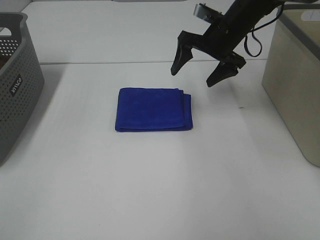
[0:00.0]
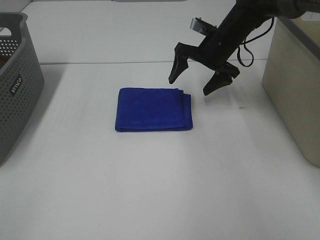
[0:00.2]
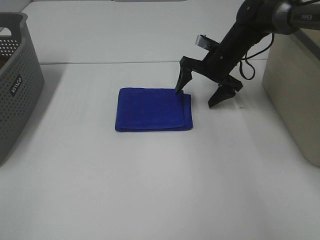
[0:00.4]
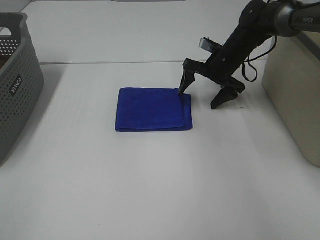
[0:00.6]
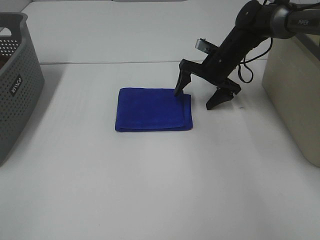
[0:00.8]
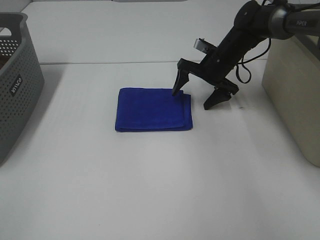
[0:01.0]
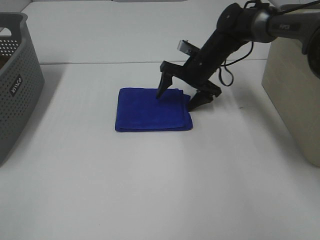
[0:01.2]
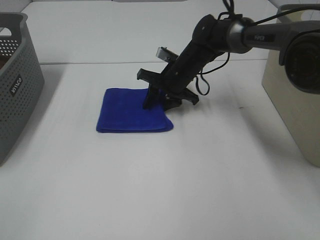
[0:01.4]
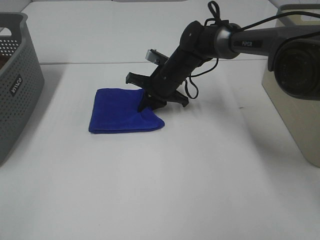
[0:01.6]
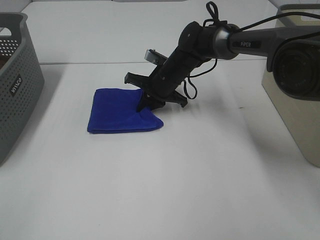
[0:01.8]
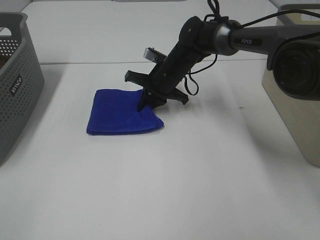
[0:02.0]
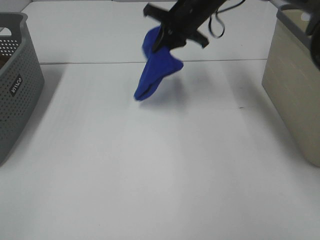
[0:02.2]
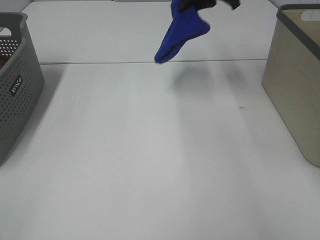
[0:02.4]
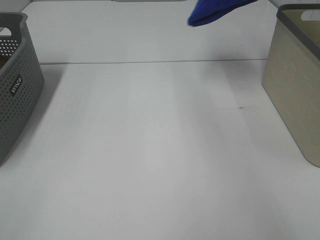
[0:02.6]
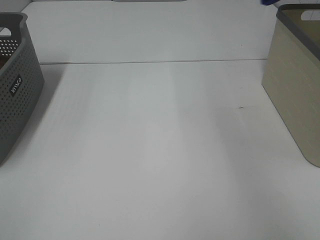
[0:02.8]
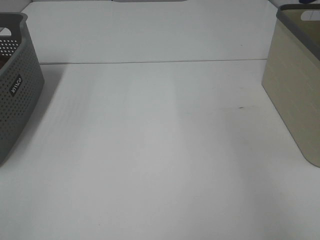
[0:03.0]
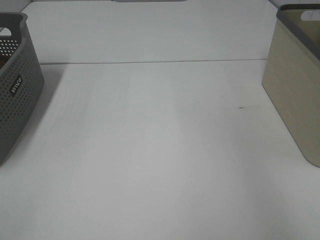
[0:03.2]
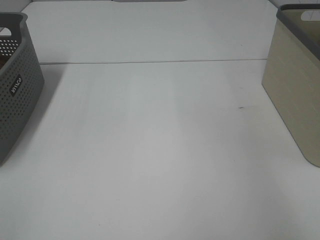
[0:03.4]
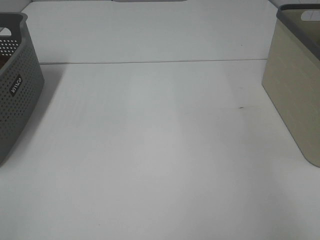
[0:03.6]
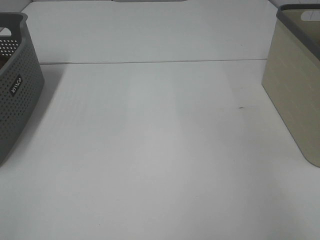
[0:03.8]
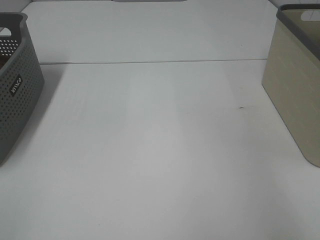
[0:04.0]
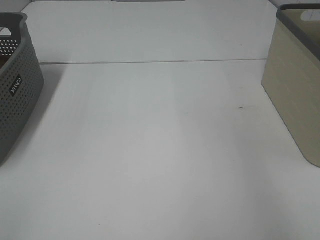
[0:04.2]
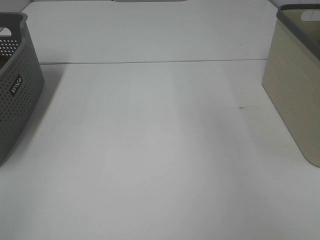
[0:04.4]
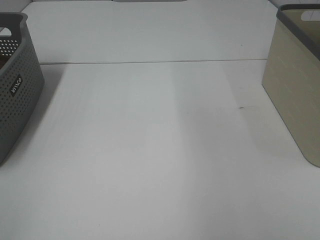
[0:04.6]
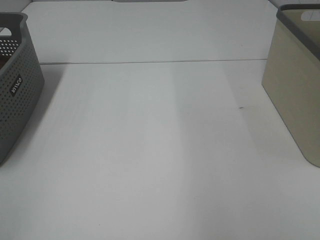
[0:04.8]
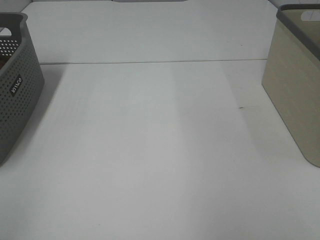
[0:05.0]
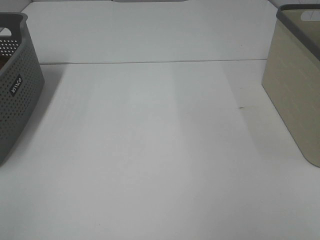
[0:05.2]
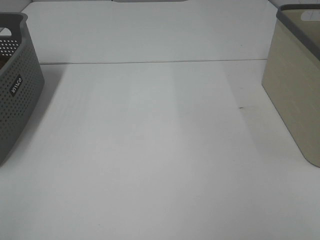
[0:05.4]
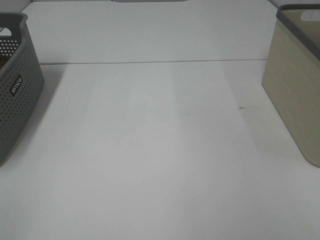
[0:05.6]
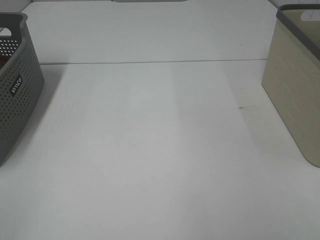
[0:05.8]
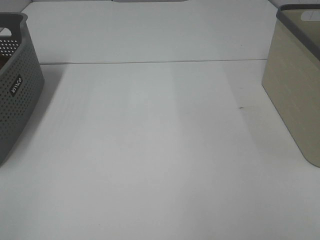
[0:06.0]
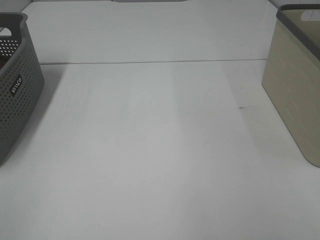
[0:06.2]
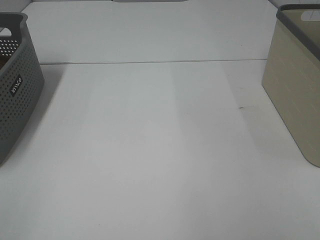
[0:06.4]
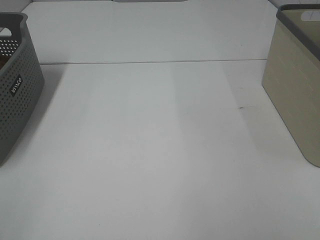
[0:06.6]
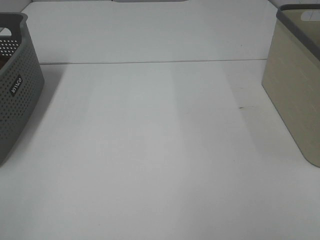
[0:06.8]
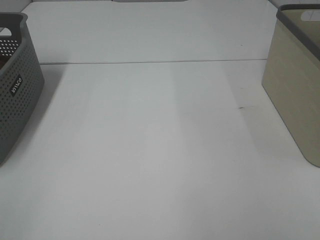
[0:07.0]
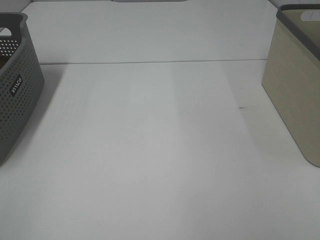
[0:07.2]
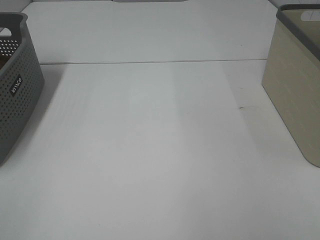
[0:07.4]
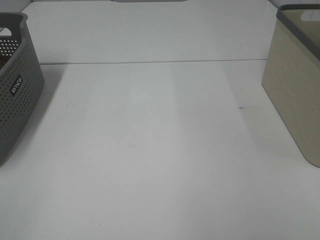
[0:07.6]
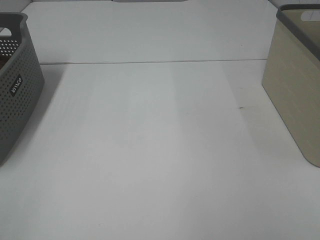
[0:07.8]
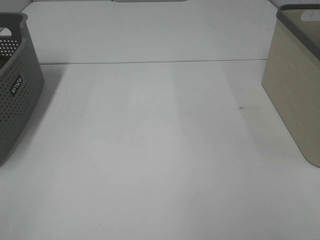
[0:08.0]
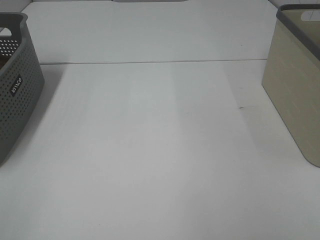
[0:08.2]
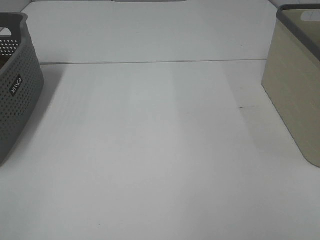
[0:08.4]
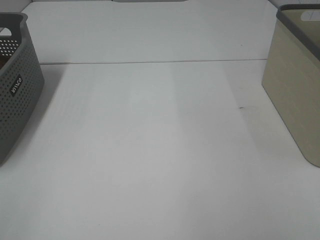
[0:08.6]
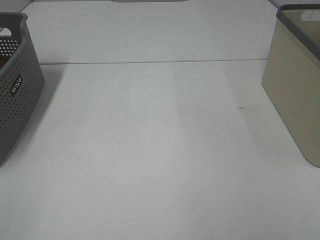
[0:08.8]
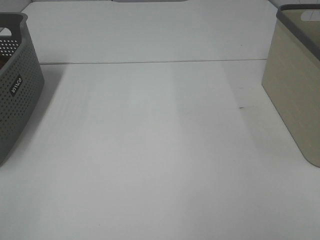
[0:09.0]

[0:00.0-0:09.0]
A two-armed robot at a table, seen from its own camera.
Step, 0:01.8 to 0:04.2: Right hand: place the blue towel in right basket.
0:00.0 to 0:01.6: The right gripper travels downward and to the left by approximately 15 cm, and closes.
0:01.6 to 0:03.0: The right gripper heads upward and to the right, covering some 50 cm.
0:06.0 to 0:09.0: The two grippers keep their place.

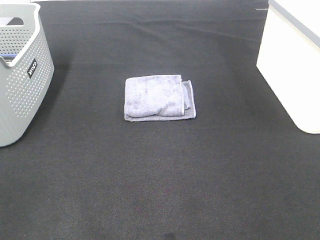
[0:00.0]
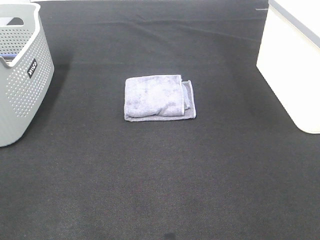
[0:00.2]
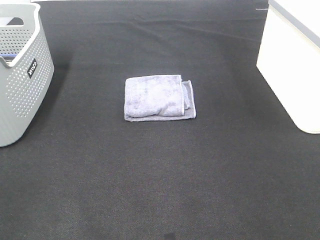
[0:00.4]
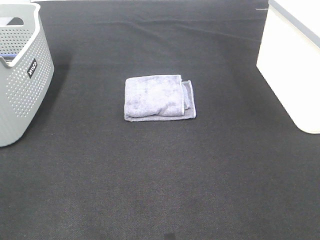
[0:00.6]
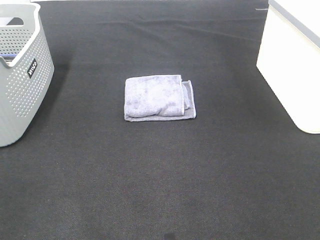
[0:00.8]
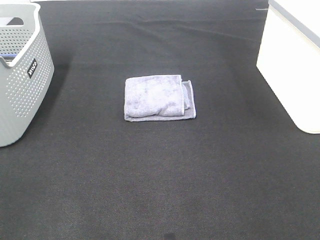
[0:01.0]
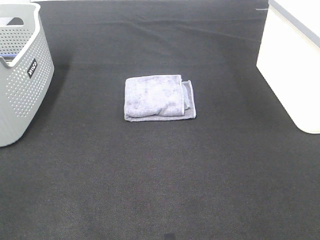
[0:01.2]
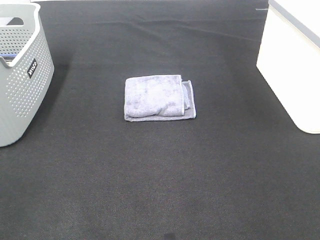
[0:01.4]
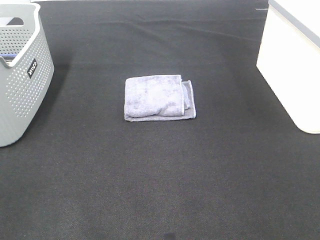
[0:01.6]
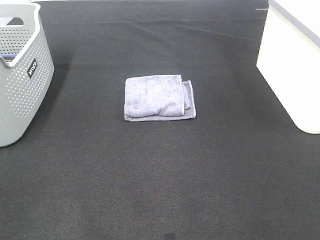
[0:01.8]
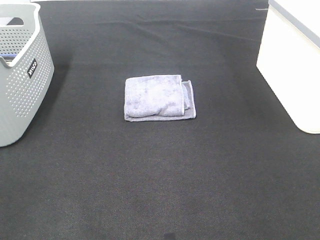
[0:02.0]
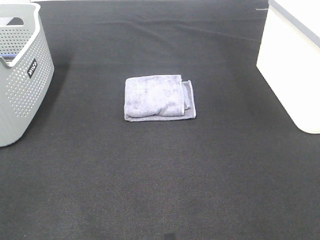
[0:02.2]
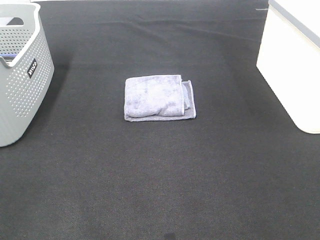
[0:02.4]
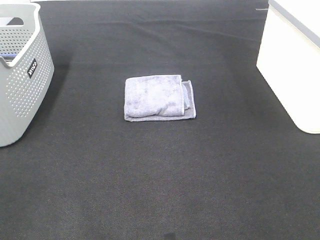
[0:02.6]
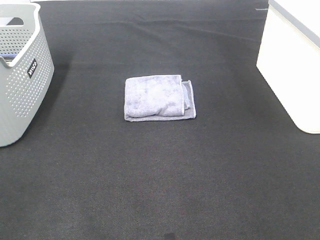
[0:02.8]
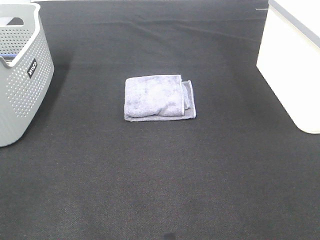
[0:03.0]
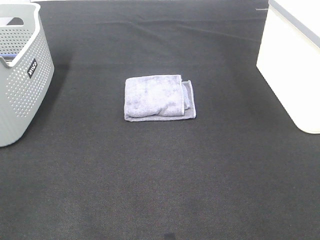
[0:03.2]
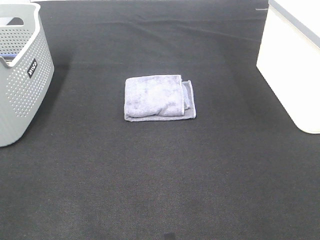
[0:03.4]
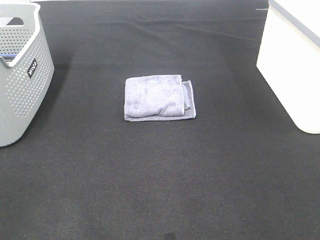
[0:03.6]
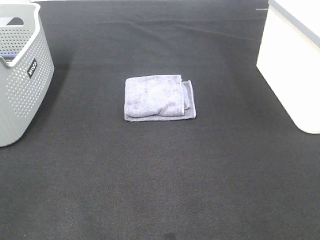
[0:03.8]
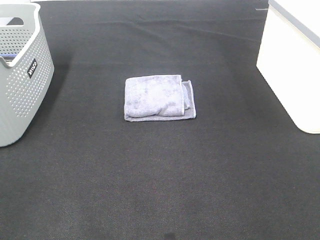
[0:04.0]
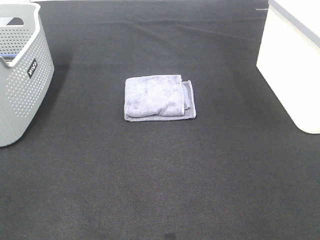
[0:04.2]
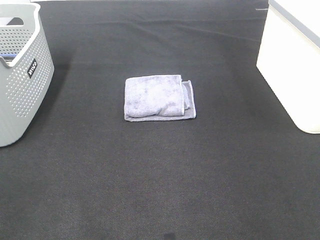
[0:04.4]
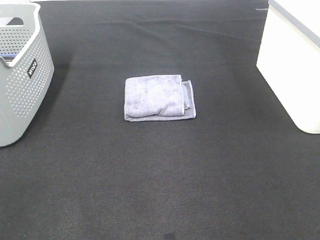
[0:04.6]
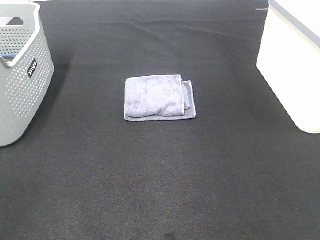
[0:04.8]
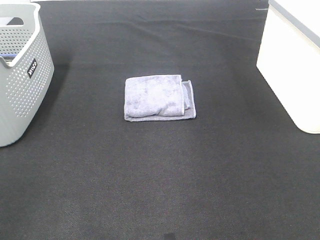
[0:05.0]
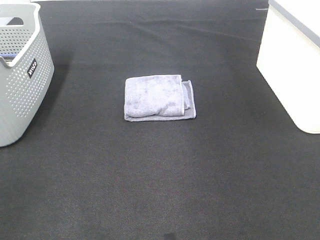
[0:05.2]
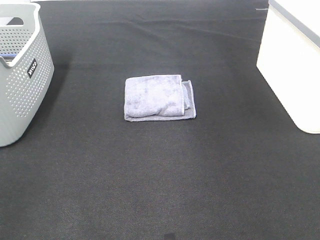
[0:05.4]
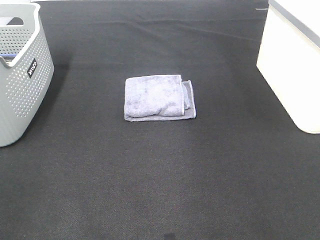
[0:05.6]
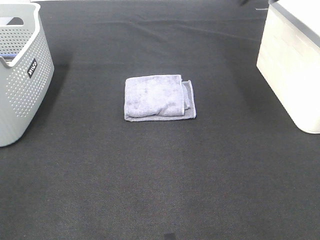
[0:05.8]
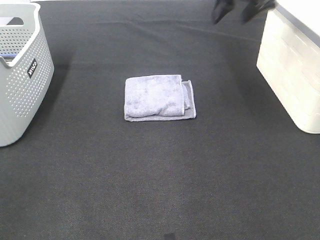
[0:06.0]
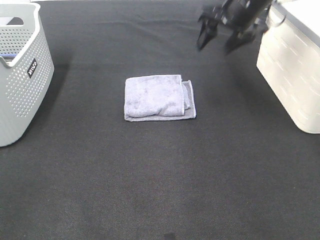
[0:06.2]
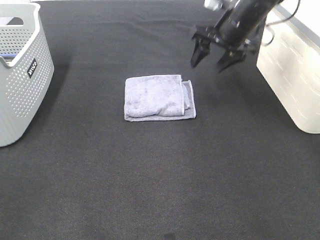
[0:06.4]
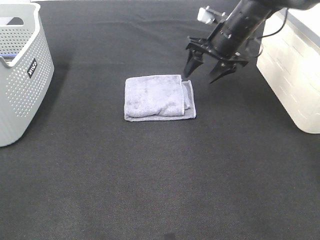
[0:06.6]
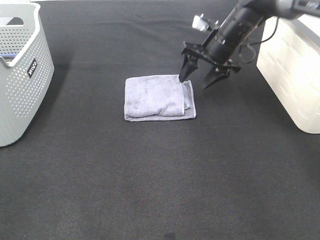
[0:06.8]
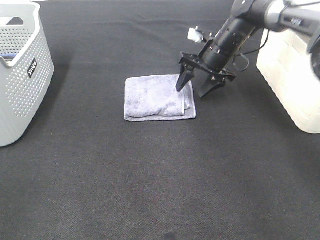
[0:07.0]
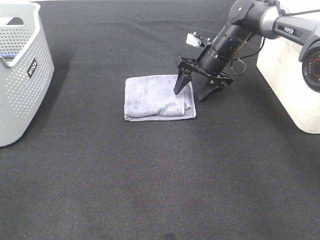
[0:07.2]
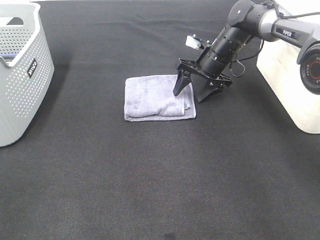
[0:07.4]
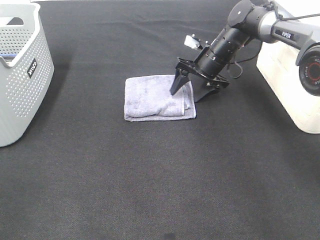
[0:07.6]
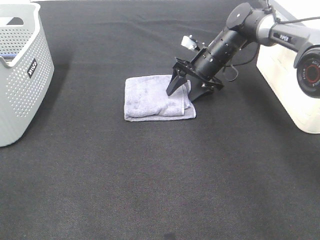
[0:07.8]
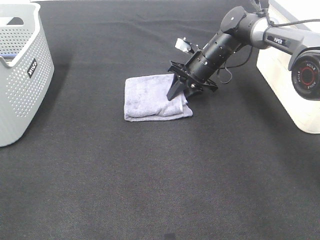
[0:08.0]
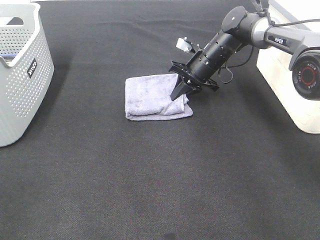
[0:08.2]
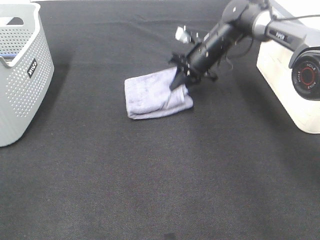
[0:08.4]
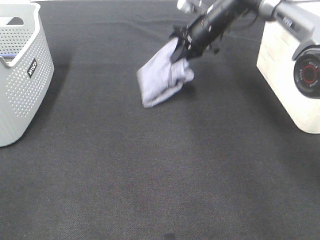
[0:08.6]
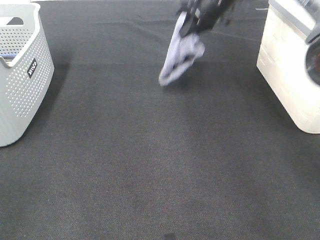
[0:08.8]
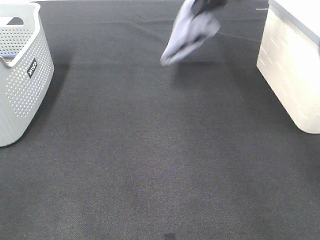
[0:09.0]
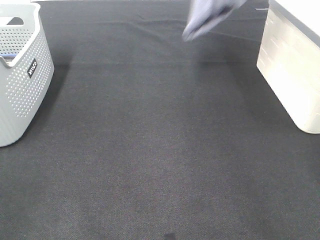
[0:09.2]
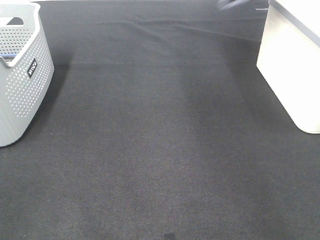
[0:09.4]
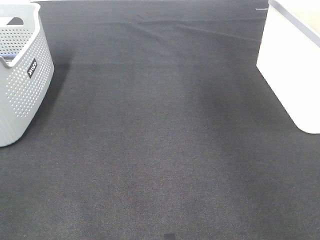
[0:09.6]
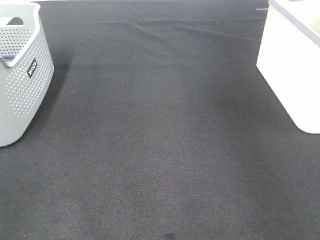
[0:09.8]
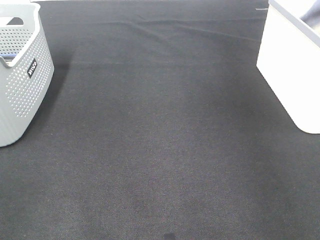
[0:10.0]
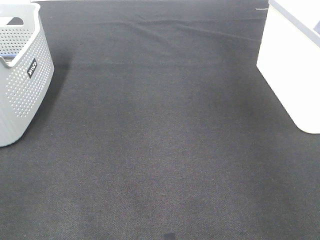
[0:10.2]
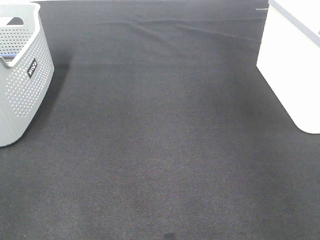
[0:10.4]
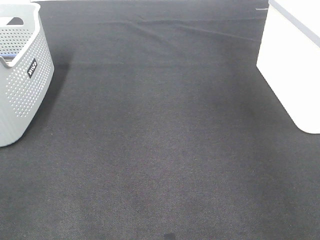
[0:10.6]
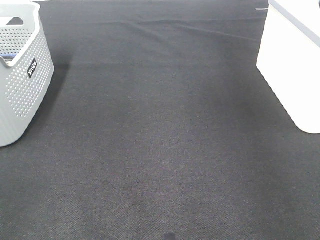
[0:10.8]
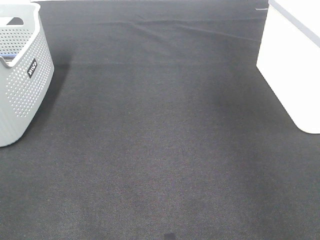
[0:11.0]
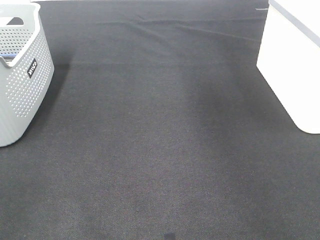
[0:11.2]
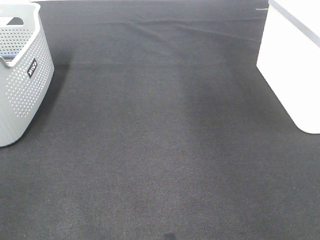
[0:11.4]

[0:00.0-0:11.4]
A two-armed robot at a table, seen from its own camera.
Step, 0:00.0 to 0:08.0: Right hand: grab the folded grey towel.
Step, 0:08.2 to 0:10.6: Right hand: place the grey towel in right basket.
0:00.0 to 0:02.8: Both grippers stay put.
0:05.6 to 0:07.2: The right gripper goes about 25 cm downward and to the left.
0:07.2 to 0:08.6: The right gripper is displaced upward by some 10 cm, and closes.
0:08.6 to 0:10.0: The right gripper moves to the right and upward, about 30 cm.

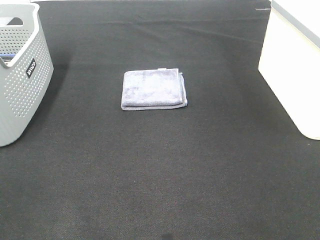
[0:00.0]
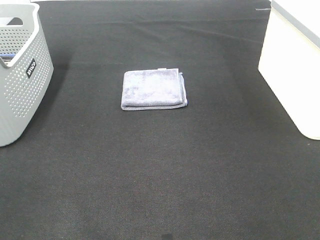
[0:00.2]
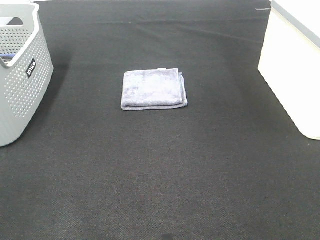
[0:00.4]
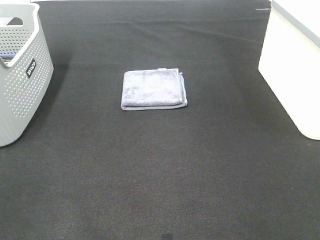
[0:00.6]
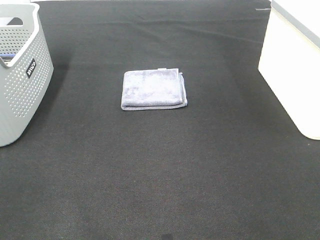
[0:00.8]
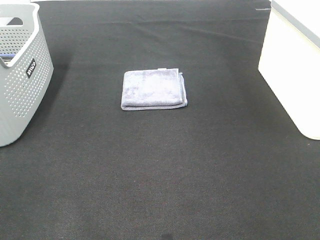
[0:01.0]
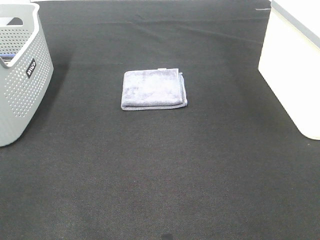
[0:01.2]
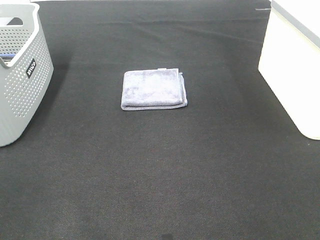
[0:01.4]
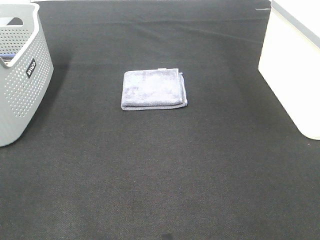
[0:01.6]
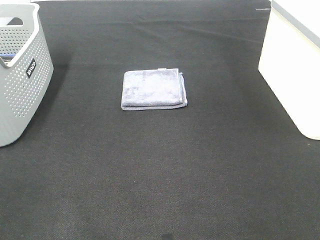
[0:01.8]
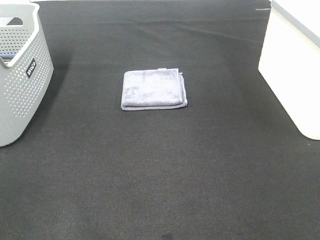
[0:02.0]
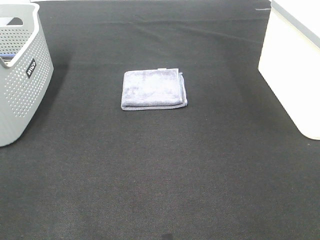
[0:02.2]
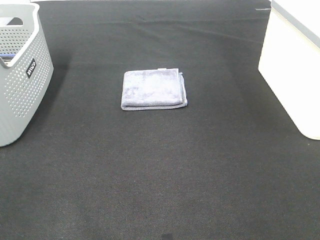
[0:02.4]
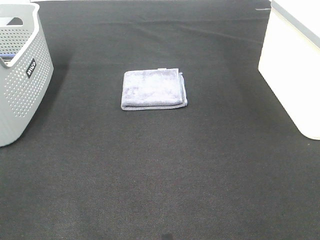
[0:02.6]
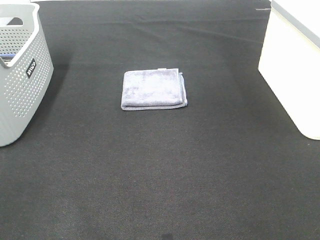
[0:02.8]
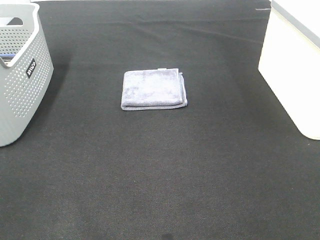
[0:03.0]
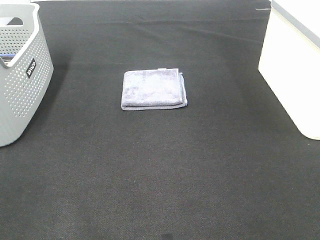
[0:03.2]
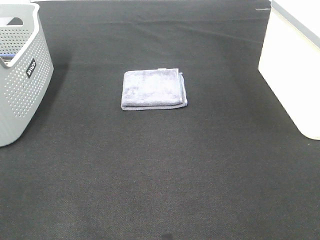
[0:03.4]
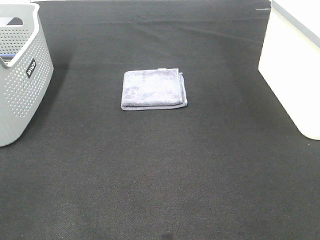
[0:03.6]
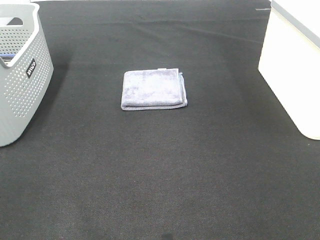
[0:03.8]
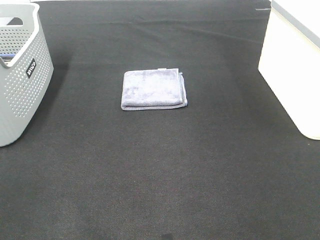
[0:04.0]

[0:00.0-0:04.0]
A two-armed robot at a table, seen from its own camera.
0:00.0 to 0:02.6: Both grippers stay put.
